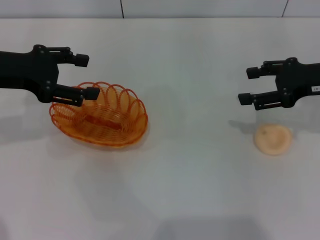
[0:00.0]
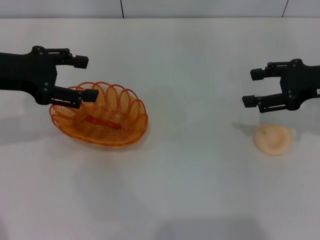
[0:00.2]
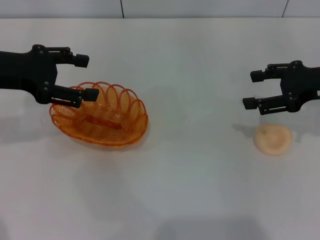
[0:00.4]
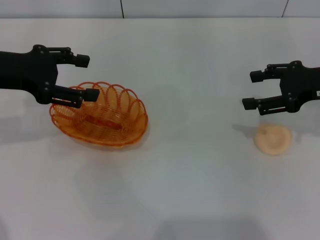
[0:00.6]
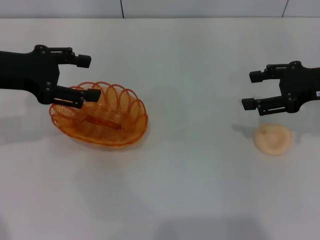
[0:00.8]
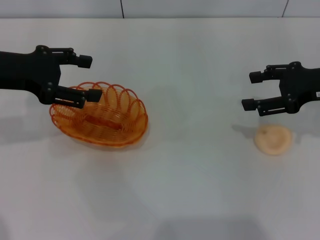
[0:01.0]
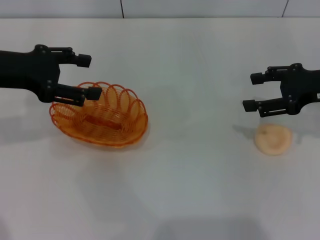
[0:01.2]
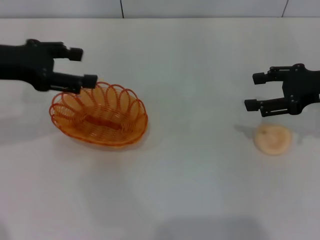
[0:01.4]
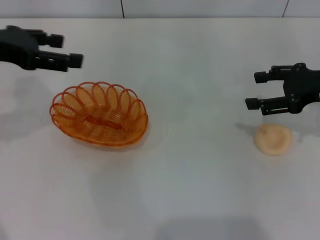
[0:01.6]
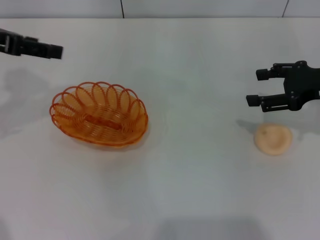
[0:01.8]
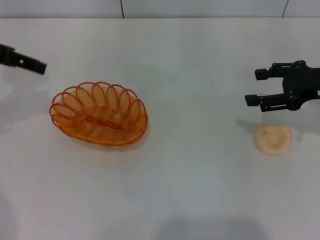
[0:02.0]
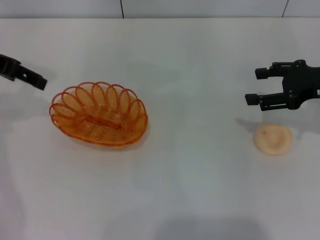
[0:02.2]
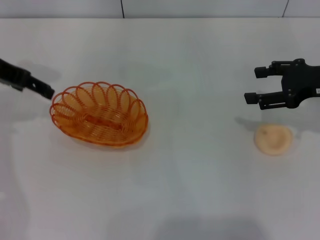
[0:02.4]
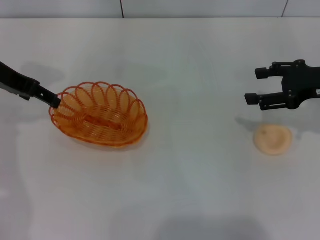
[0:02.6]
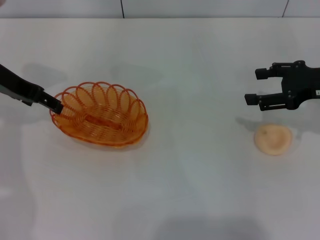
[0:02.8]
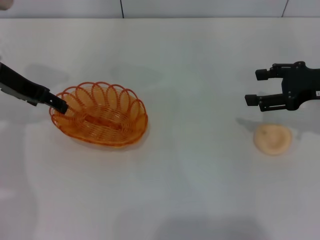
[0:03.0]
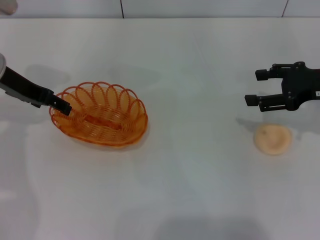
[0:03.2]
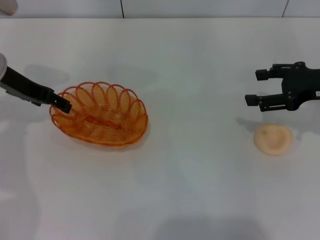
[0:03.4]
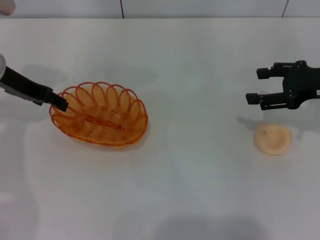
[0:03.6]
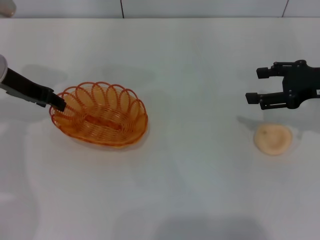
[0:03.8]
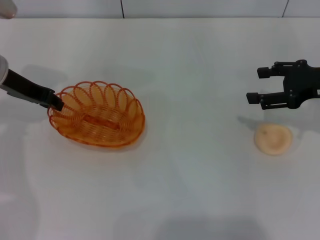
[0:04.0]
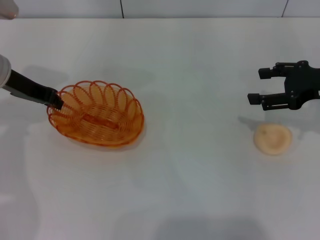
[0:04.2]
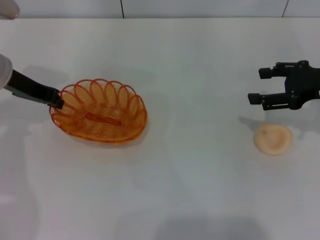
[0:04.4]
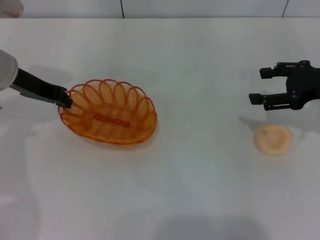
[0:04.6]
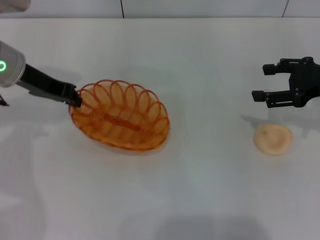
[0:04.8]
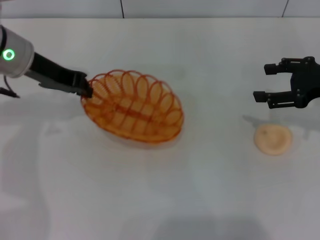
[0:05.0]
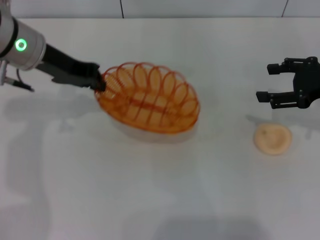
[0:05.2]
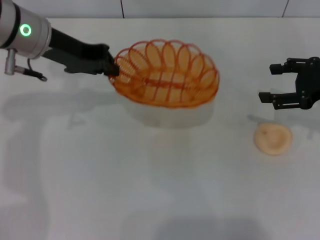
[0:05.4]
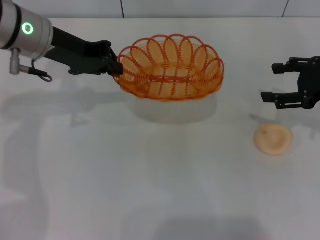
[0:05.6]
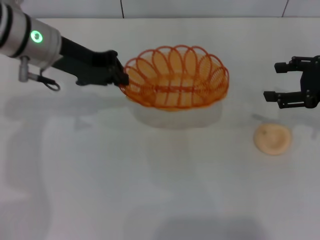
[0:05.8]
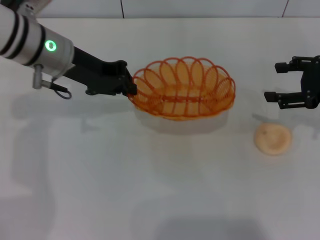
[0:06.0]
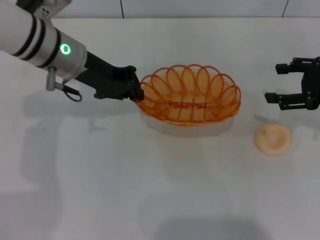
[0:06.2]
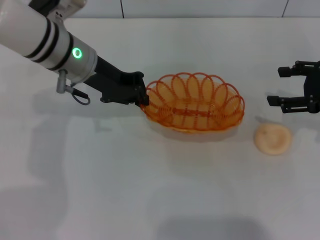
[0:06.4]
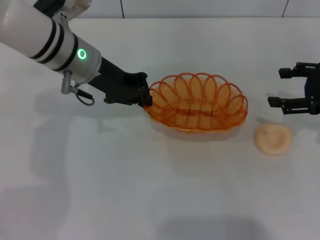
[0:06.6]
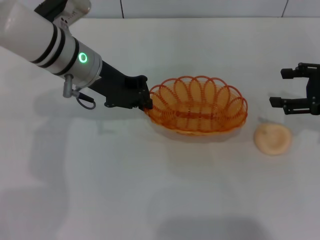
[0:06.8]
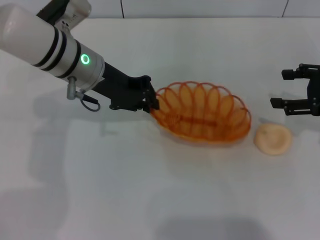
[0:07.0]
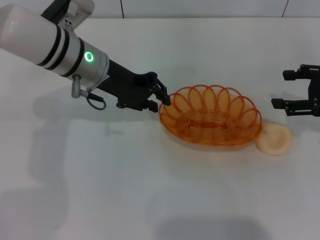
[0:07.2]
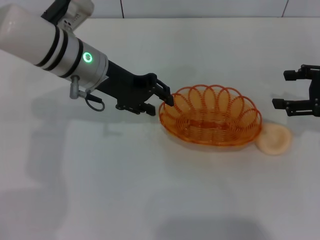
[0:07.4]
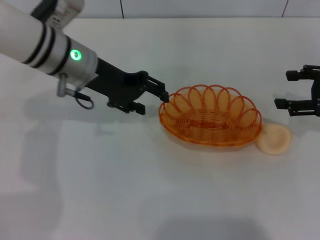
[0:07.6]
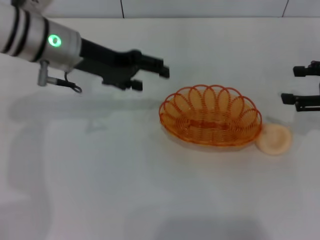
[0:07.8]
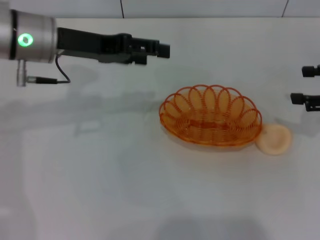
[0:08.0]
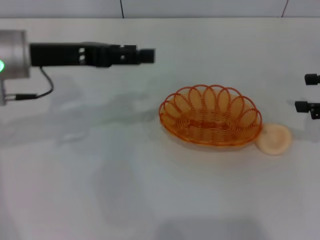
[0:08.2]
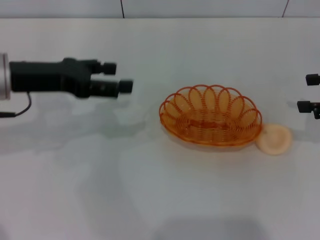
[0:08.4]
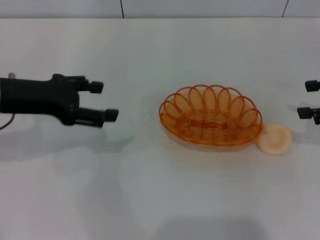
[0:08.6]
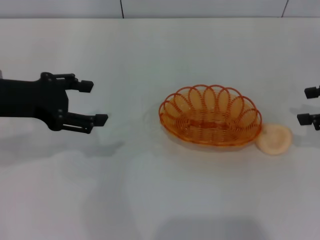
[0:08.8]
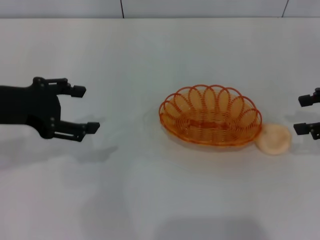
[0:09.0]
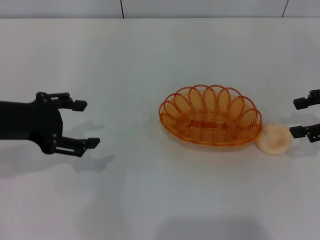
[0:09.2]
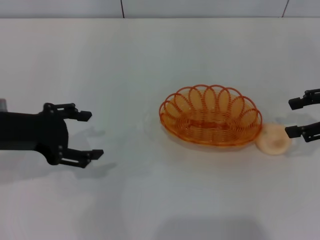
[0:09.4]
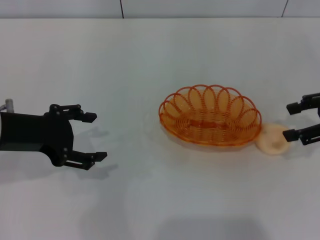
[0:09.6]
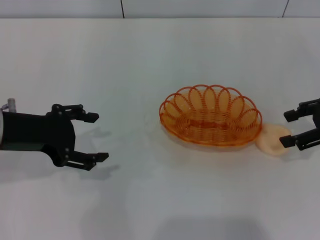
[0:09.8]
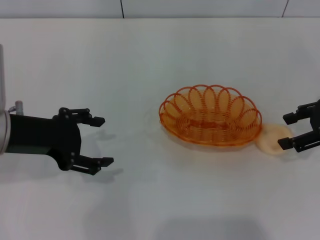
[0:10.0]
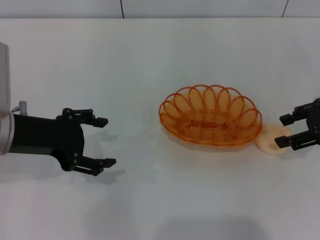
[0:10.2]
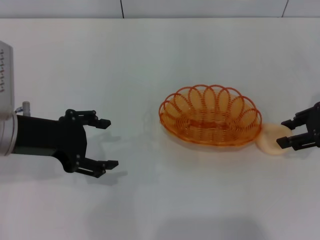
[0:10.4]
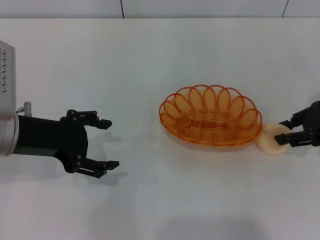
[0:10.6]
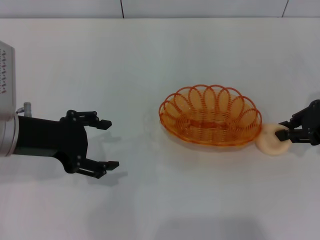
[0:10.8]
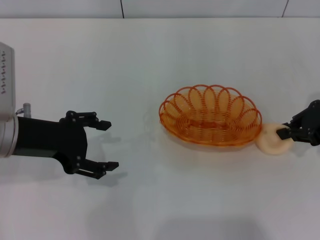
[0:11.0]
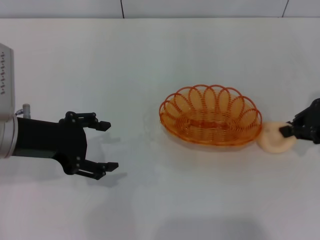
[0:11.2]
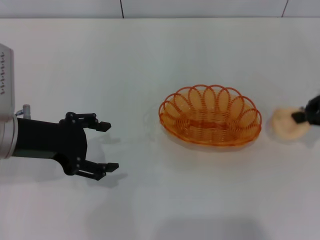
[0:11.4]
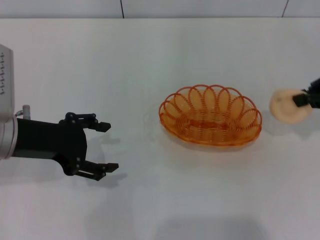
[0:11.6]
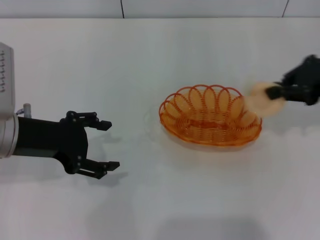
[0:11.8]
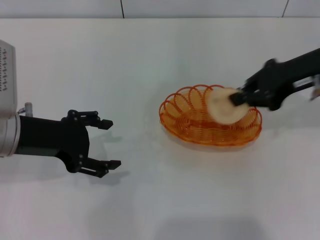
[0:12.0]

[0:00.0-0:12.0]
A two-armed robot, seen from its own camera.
Step, 0:00.0 to 0:04.6: Pick up the basket with the left gripper.
Step, 0:04.8 to 0:08.0: Place the basket in the center of view with the left gripper.
Step, 0:08.2 to 0:11.4: Pick up the egg yolk pastry with the right gripper.
0:01.6 to 0:03.0: The left gripper heads downward and forward, covering some 10 cm.
0:03.0 to 0:04.4: The left gripper closes.
0:04.4 to 0:06.0: The left gripper is displaced to the right by some 10 cm.
0:06.0 to 0:07.6: The left gripper opens up.
0:07.6 to 0:09.0: The left gripper shifts roughly 15 cm to the left and backward, and opens up.
0:09.0 to 0:10.4: The grippers stay close to where they were, moving slightly.
0:10.4 to 0:12.0: The right gripper goes approximately 10 cm to the left and upward, and closes.

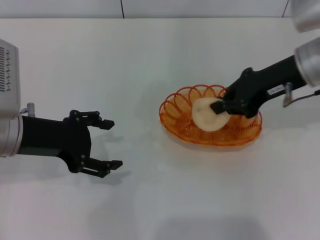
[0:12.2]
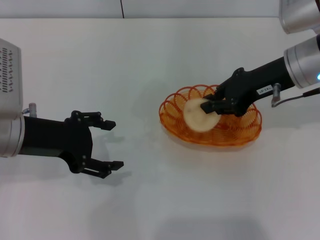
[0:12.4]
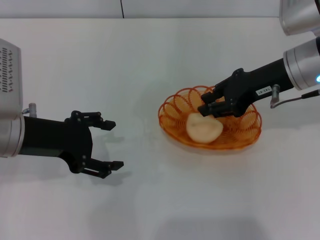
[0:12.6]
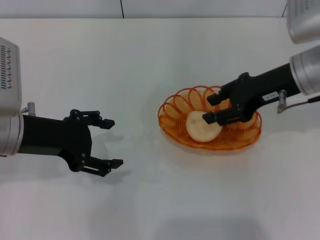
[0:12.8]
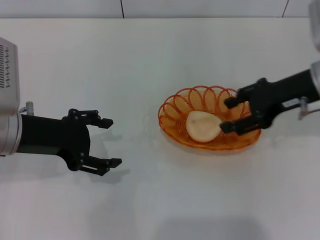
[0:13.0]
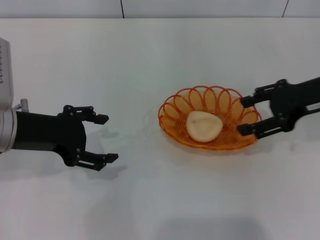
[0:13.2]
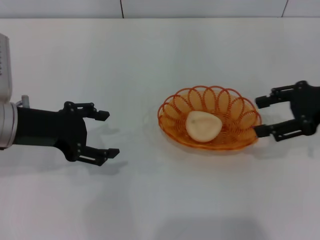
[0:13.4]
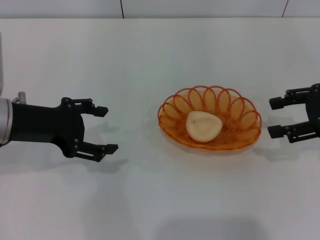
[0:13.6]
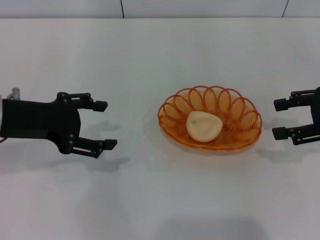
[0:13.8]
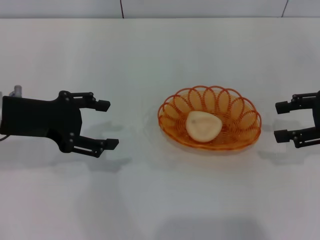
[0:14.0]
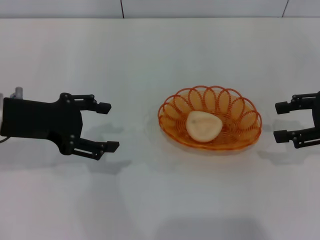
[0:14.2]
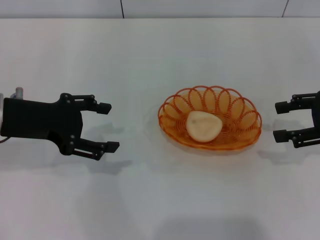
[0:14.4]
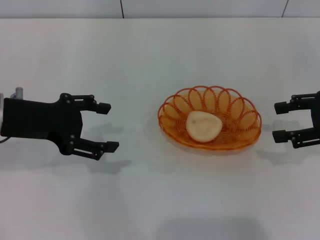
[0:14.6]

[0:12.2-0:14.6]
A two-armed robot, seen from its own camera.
Step, 0:12.2 to 0:13.2: Place the egg yolk pastry into the basket with the right gripper.
0:12.2 to 0:13.4: The right gripper heads to the right, covering approximately 10 cm, and opens.
0:13.4 to 0:14.6: There are only small adjustments of the grippers.

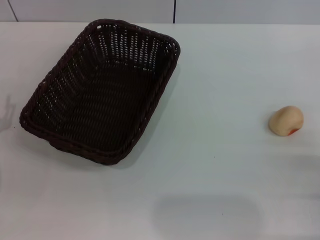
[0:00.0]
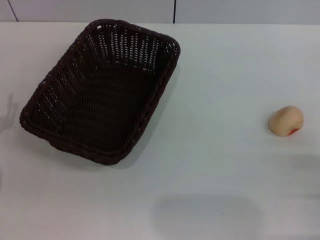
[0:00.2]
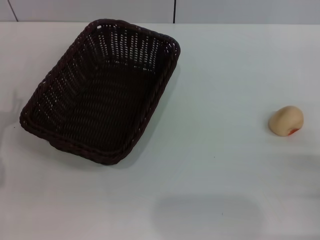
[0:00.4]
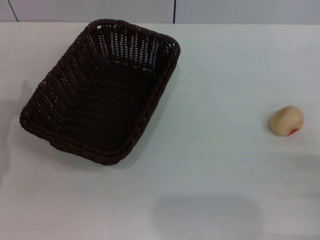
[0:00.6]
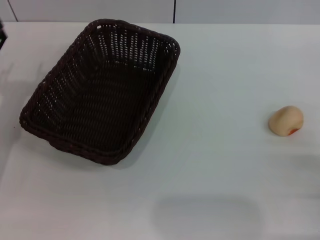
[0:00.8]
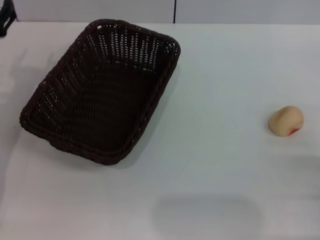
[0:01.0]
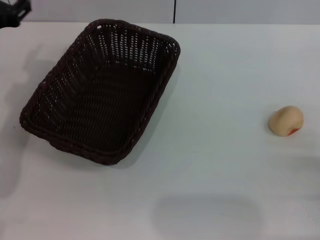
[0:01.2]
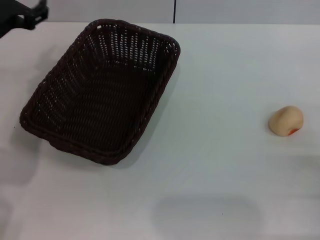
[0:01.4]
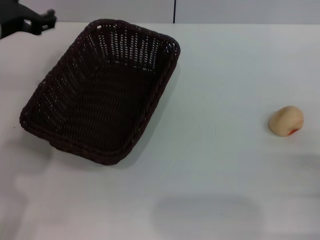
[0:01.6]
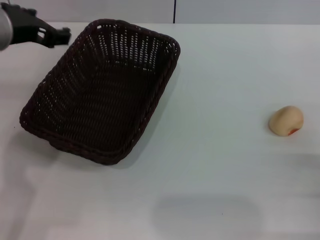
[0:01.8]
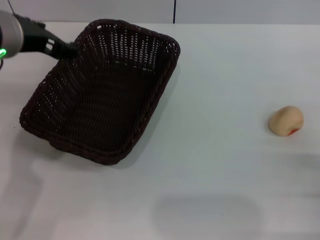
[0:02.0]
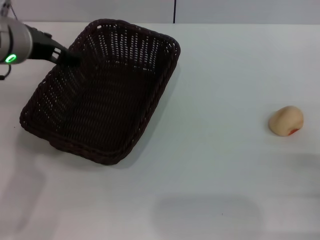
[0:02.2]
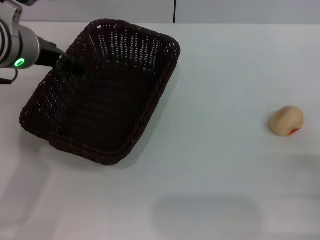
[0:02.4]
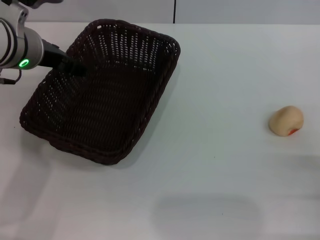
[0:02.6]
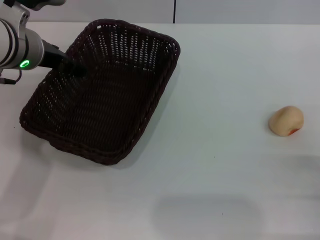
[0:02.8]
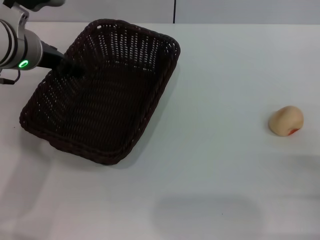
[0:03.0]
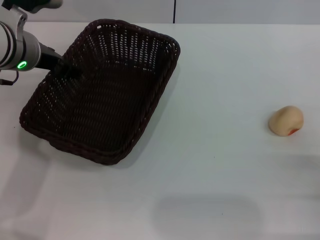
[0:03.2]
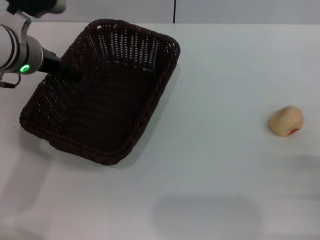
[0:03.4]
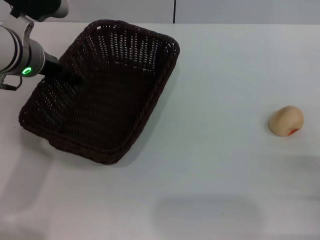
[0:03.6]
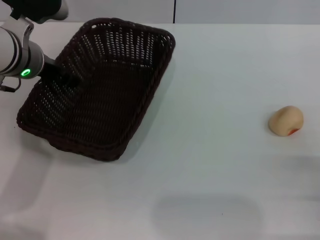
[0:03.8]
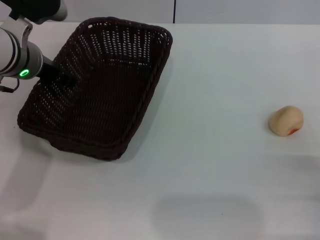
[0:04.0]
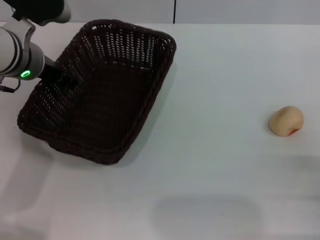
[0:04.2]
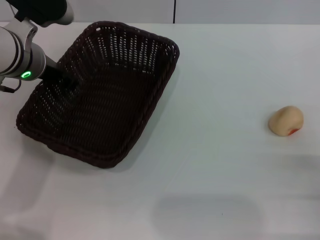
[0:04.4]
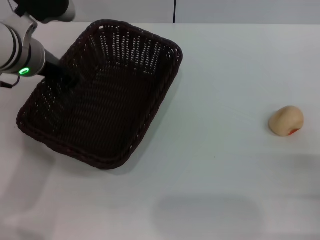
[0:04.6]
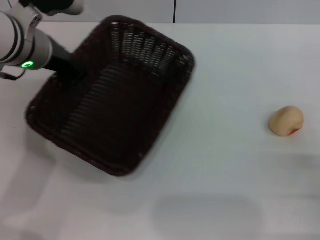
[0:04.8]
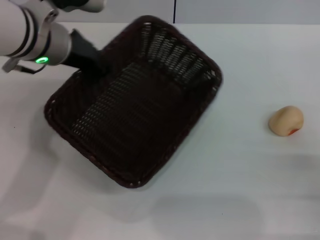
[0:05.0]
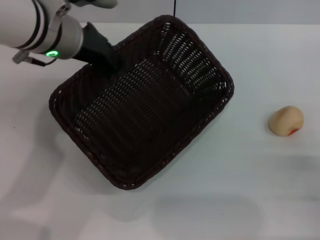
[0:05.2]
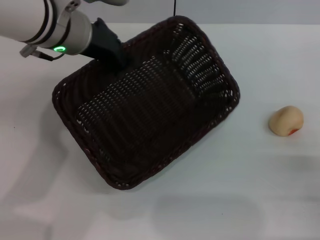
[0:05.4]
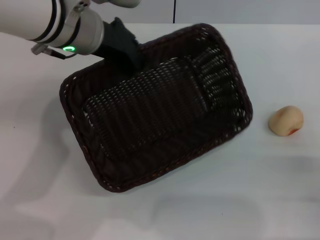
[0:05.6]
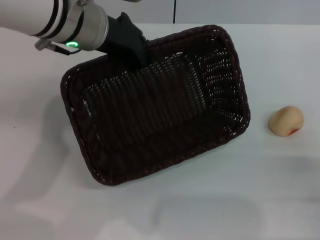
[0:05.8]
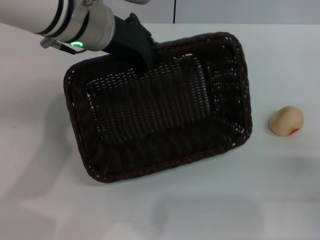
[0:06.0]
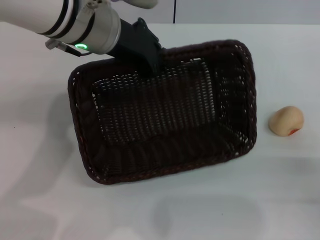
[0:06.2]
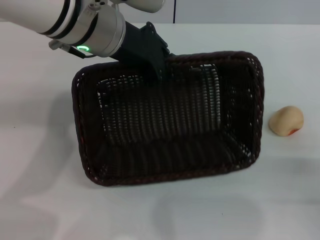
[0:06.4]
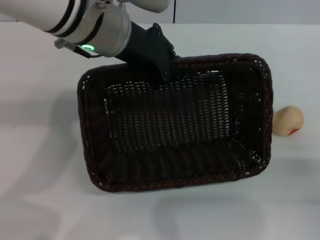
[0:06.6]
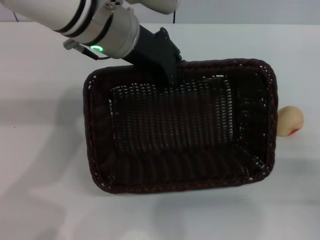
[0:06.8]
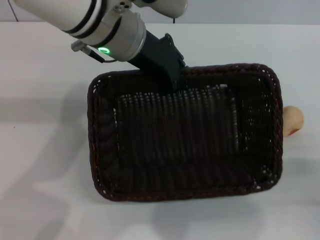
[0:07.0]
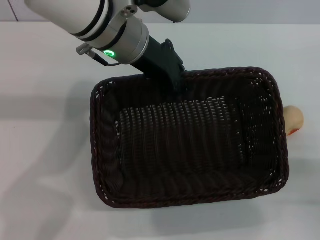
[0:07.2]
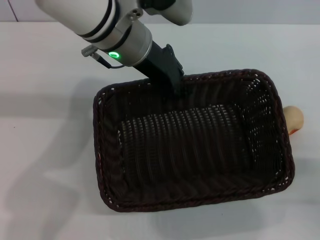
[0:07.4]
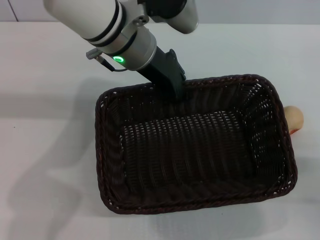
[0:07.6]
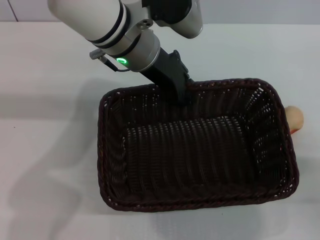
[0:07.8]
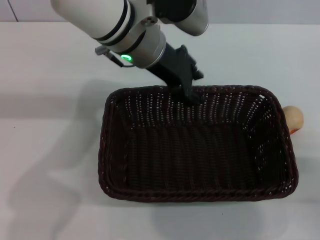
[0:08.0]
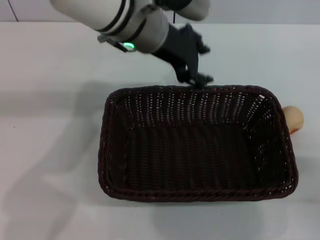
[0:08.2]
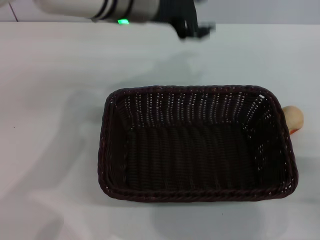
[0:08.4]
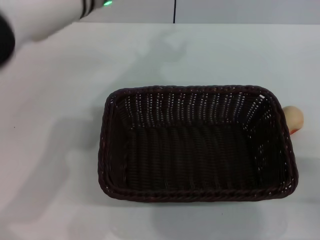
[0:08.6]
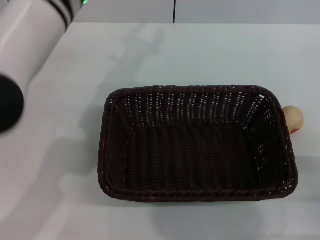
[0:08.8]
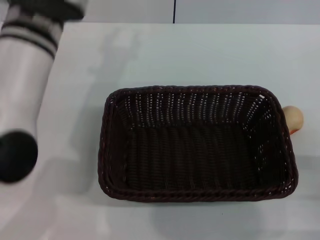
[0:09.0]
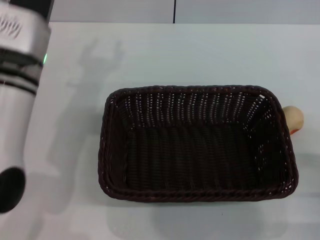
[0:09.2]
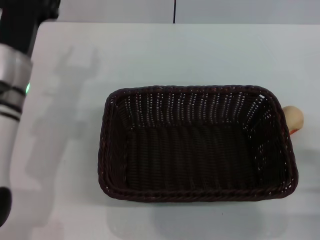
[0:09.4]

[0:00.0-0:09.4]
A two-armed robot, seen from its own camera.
Step, 0:00.0 to 0:08.2: Move the basket to the center of view with the left gripper.
0:00.0 to 0:01.6: The left gripper goes about 25 cm upward, forward and to the right.
0:01.6 to 0:03.2: The left gripper ends up some 5 cm from where it was.
0:03.2 to 0:04.8: The left gripper closes.
0:04.8 to 0:06.2: The left gripper goes roughly 5 cm to the right.
0:06.2 to 0:07.8: The left gripper moves roughly 5 cm.
0:07.8 to 0:09.4: The left gripper travels to the left, downward and backward by roughly 20 cm, and opens its fingers.
